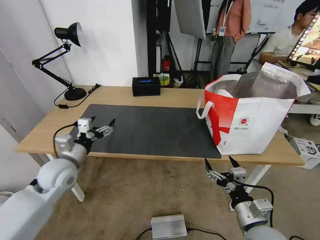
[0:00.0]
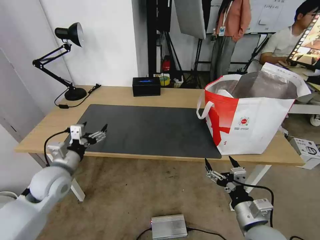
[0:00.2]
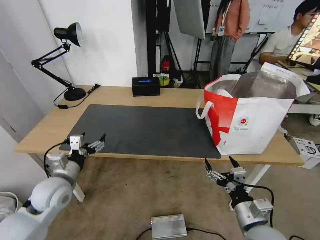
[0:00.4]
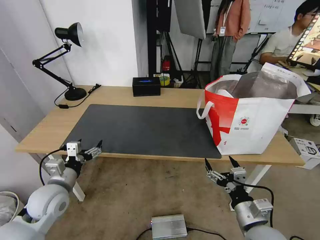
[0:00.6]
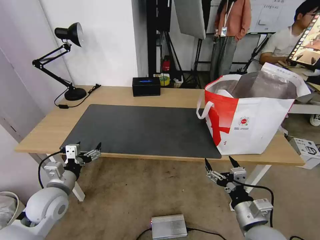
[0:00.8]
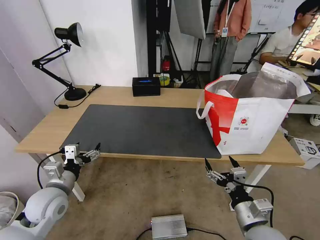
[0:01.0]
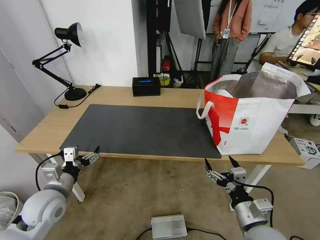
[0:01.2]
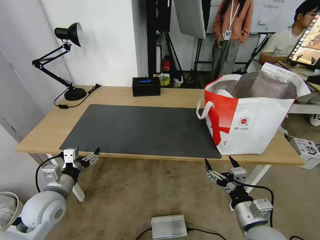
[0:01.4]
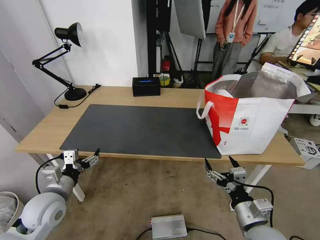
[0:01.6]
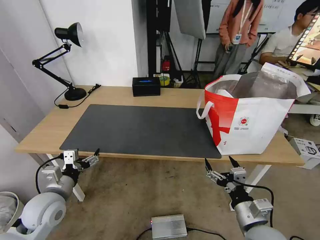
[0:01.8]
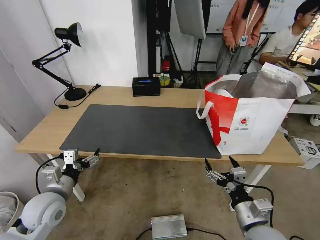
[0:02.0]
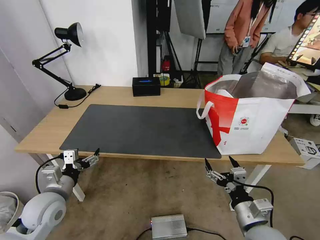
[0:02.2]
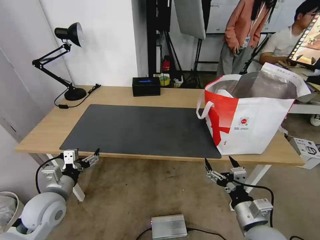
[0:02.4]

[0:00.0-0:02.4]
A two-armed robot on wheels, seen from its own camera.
Task of the whole recording: Pick up the trash from the table and place it into the takeout bag.
0:00.0 to 0:01.2: The left gripper travels backward by roughly 10 cm.
0:01.2 to 0:02.4: Neither gripper changes place.
